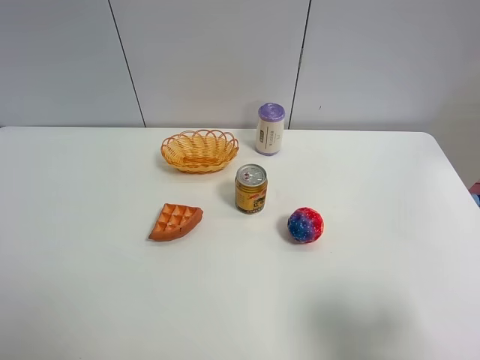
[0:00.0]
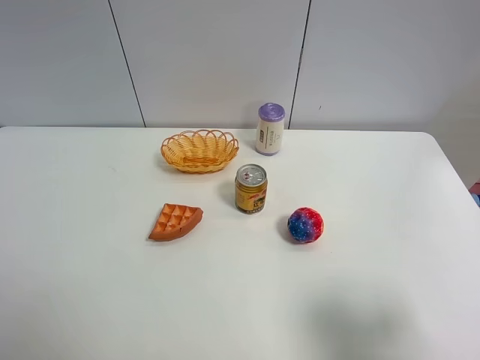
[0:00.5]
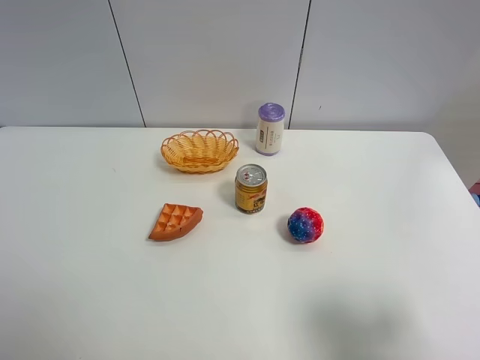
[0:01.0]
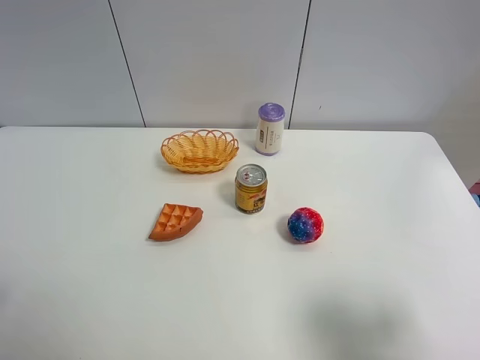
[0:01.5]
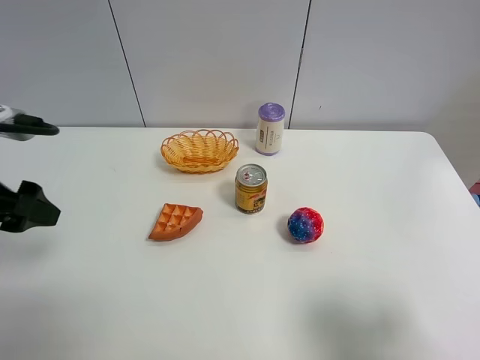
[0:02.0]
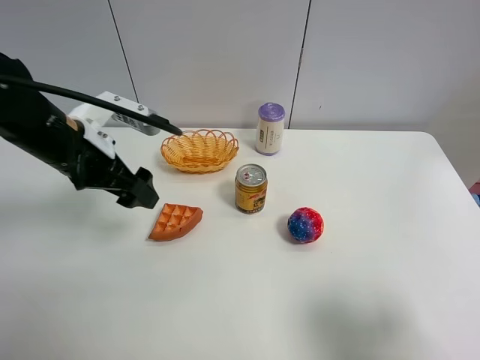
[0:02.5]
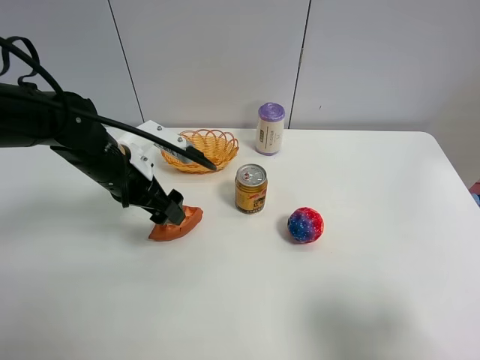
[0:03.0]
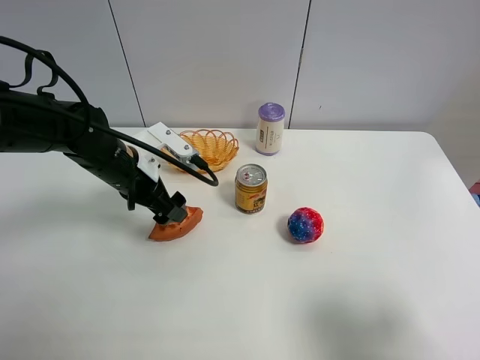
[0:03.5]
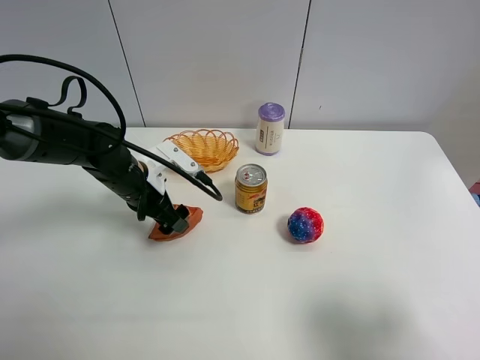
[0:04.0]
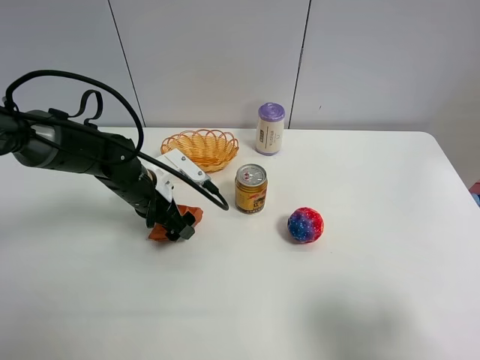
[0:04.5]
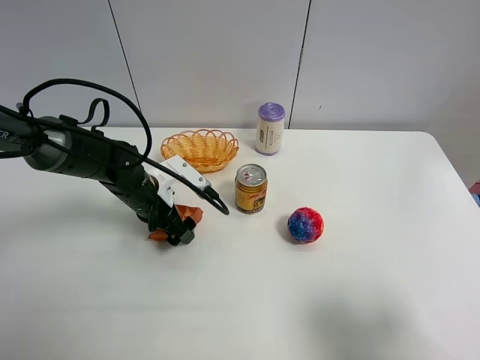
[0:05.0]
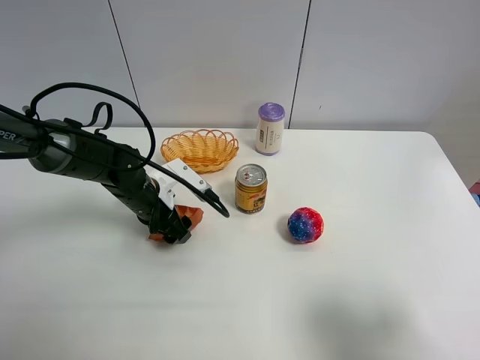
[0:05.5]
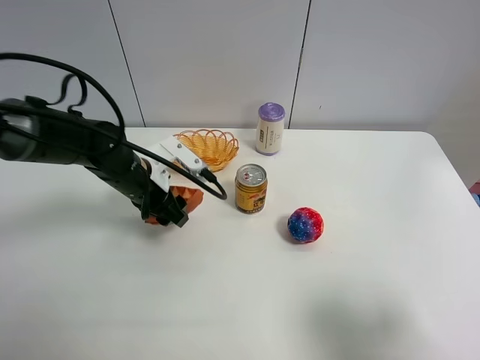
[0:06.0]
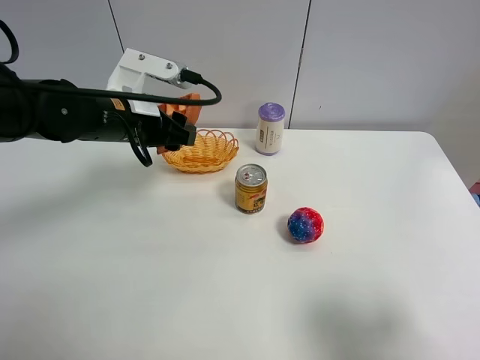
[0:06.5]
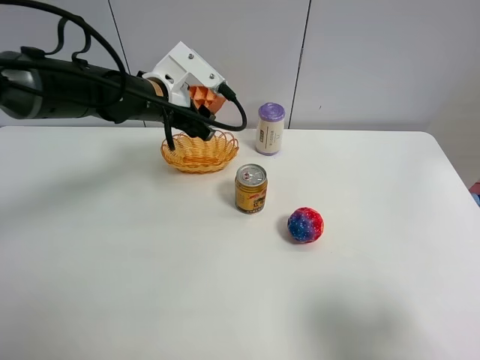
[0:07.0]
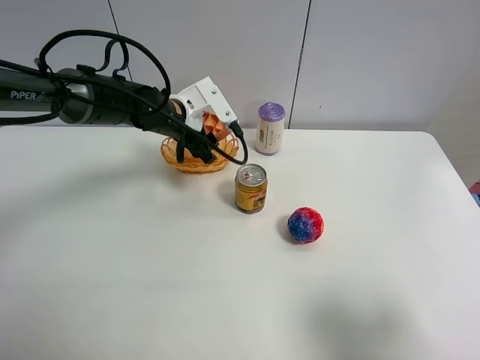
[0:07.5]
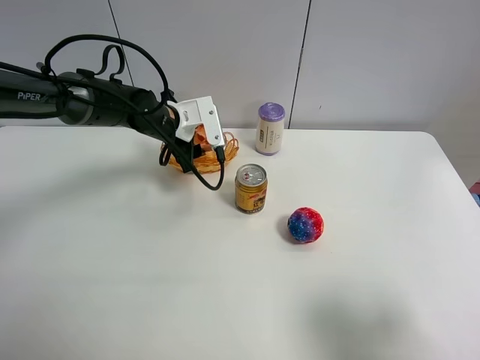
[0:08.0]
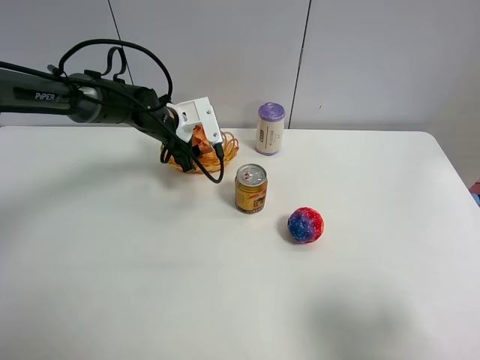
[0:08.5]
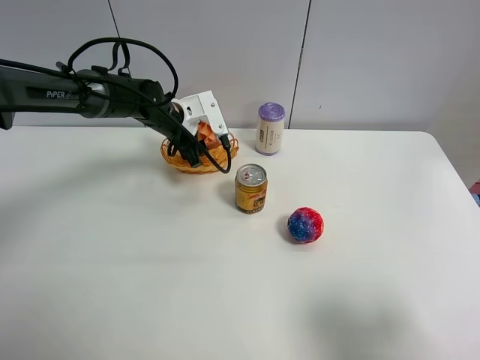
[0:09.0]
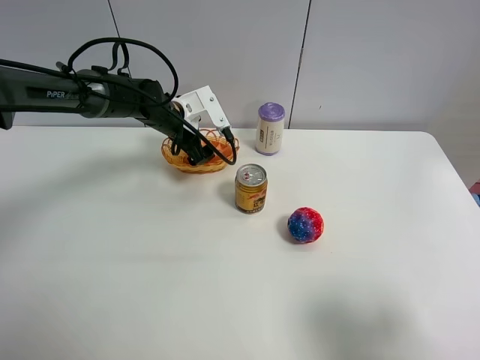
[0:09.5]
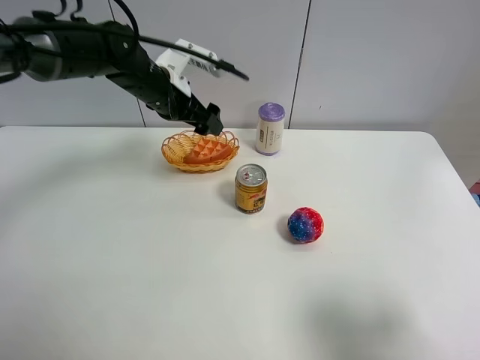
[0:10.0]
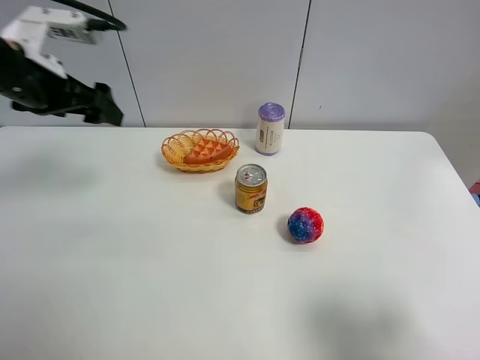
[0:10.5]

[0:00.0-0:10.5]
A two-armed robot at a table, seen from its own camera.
Task of the whole recording: Put the bakery in the basket.
0:00.0 to 0:02.0: The left gripper shifts approximately 20 cm forward.
0:02.0 to 0:04.0: The left gripper goes some 25 cm downward, to the right and forward.
0:04.0 to 0:06.5: The left gripper goes approximately 10 cm upward, and closes its fingers.
0:06.5 to 0:08.5: The left gripper shifts roughly 15 cm forward and downward.
0:08.5 to 0:10.5: The left gripper is displaced upward, to the left and backward by some 25 cm, and opens up.
